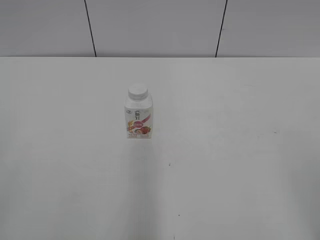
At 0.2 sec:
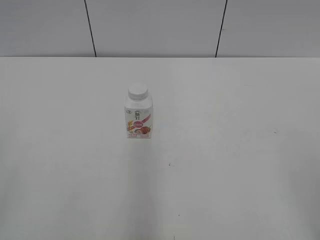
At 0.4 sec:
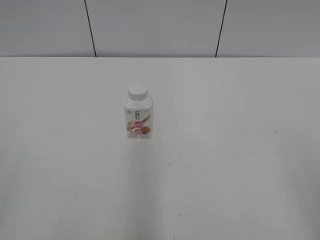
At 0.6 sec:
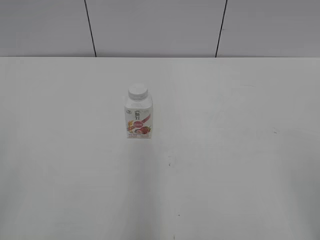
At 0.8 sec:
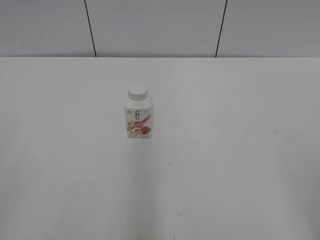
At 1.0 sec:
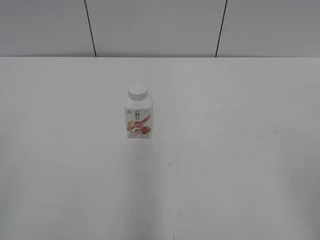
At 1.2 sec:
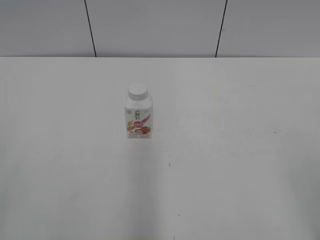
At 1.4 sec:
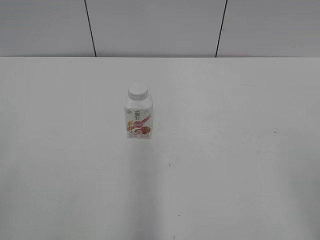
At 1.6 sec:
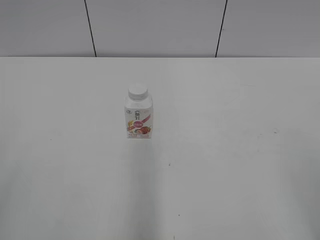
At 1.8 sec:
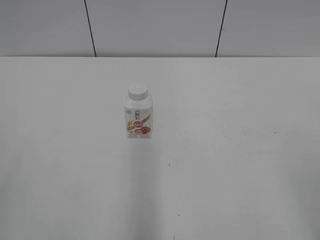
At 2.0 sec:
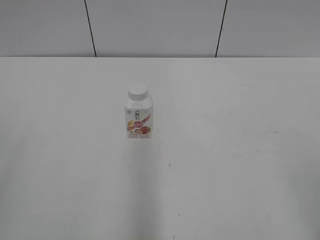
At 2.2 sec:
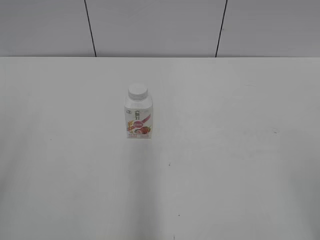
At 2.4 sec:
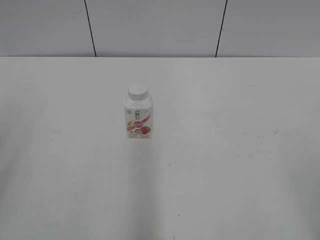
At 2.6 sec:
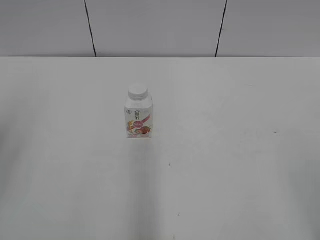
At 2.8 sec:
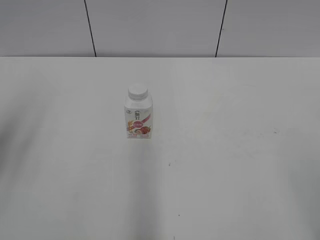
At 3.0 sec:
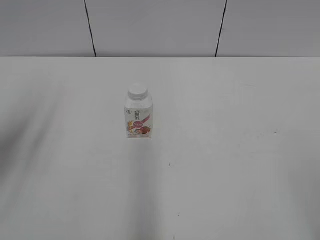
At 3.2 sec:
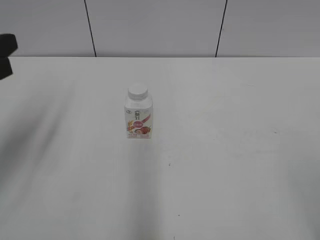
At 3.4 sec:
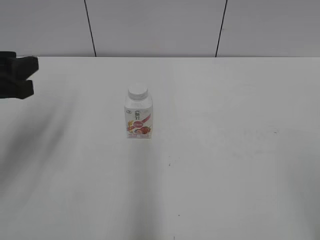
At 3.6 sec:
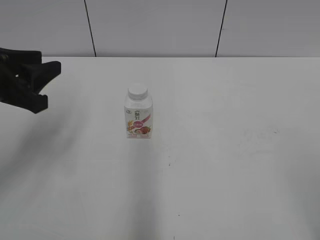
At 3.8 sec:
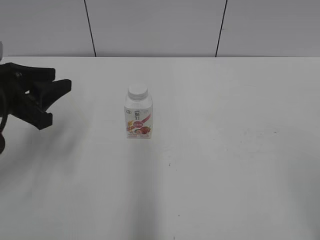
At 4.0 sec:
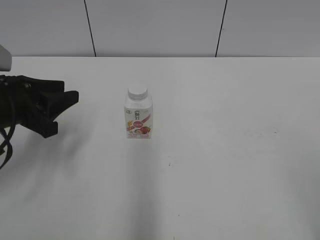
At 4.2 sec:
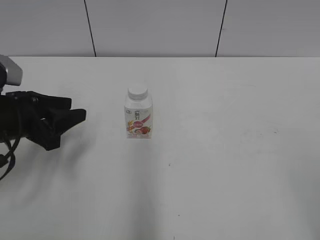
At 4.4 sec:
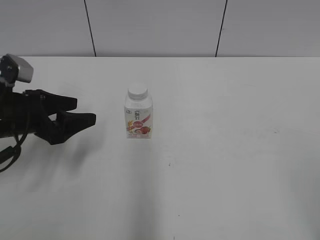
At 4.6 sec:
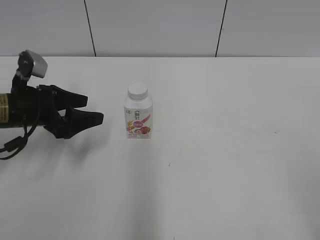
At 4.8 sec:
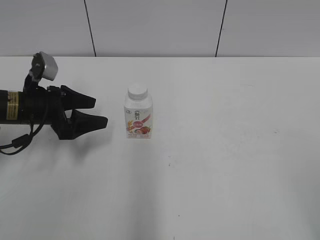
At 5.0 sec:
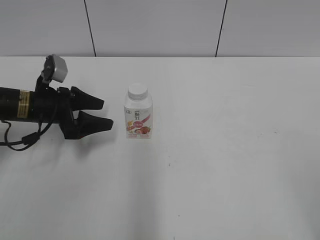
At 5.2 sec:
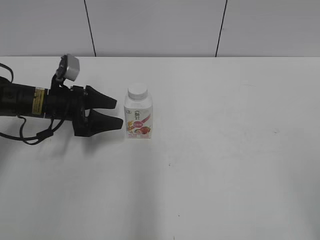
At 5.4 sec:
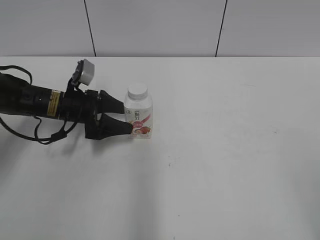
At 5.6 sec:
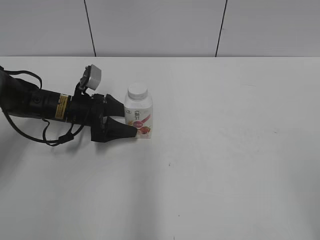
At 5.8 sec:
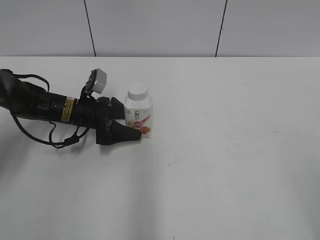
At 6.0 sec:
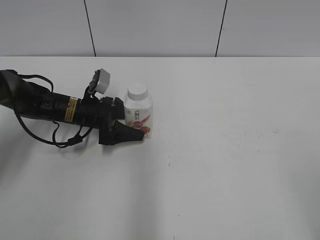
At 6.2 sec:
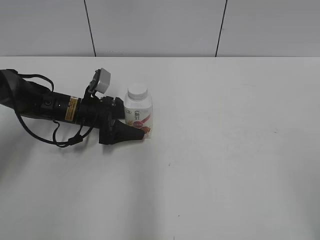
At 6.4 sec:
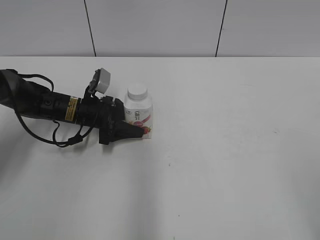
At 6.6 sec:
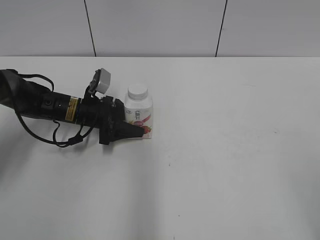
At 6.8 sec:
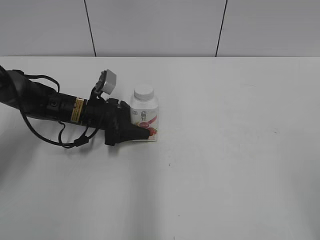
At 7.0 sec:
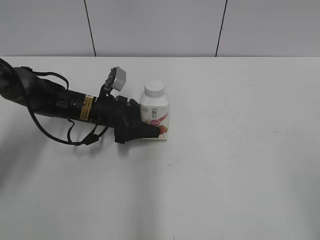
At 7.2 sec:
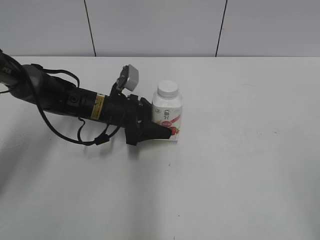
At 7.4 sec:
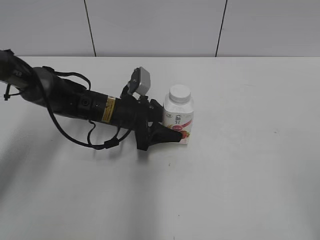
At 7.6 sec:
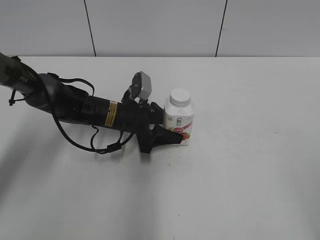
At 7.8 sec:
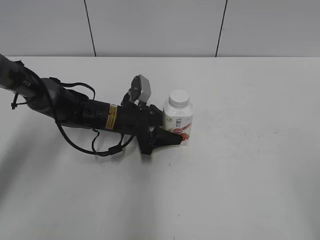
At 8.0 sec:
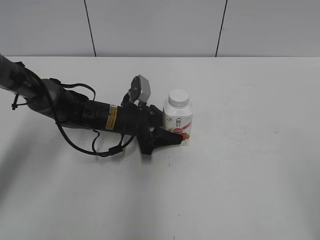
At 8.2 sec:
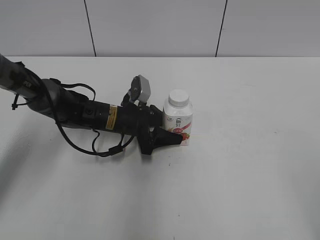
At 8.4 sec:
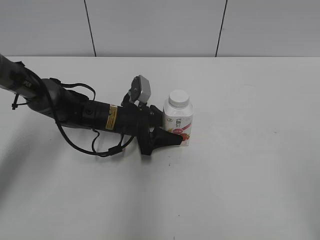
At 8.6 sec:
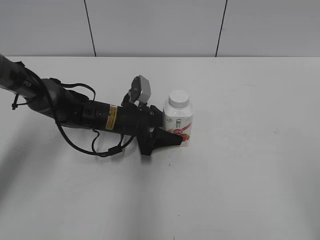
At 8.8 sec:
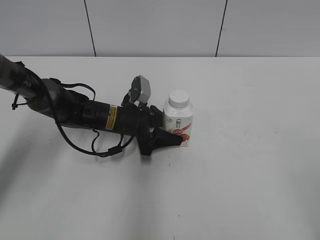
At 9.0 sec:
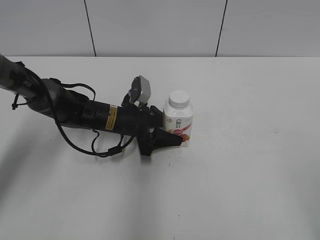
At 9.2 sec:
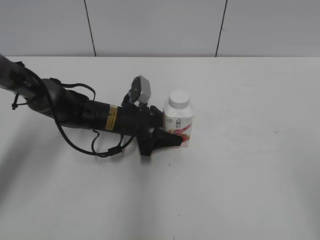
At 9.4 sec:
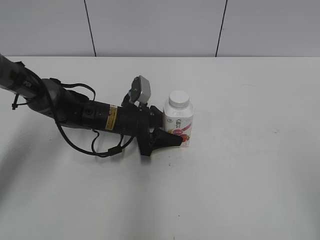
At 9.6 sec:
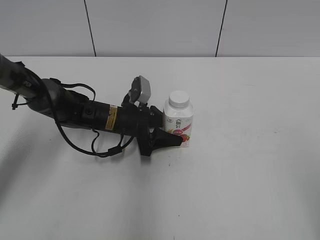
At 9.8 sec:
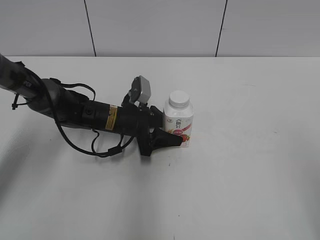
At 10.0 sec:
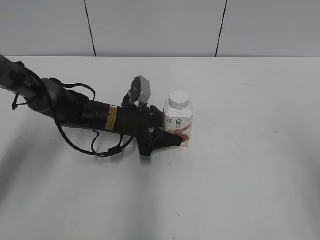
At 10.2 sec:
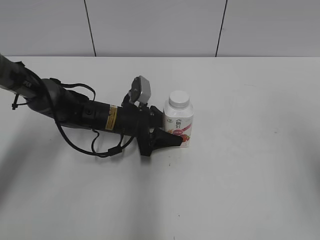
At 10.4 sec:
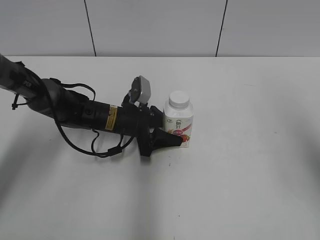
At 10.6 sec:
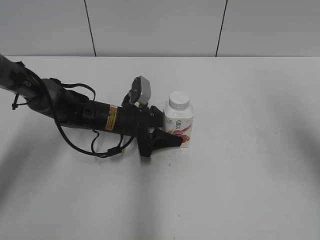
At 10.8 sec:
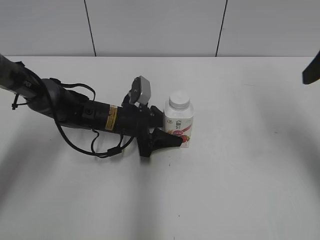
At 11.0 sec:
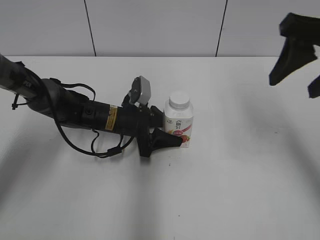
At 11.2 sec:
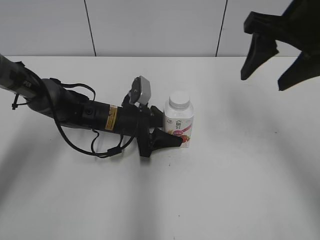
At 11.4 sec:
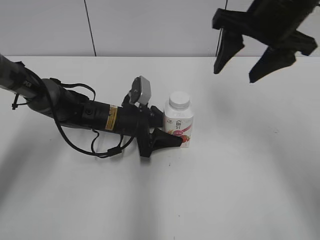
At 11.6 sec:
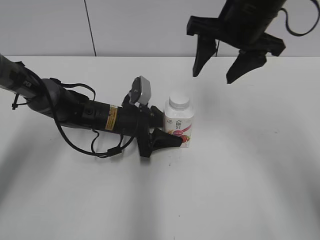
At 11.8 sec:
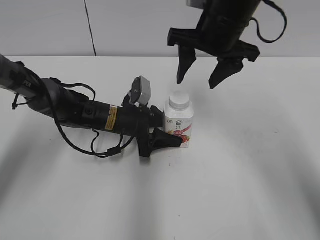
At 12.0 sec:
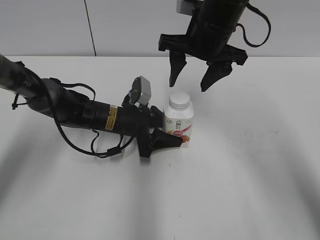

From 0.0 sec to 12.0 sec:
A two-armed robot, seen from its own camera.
Step, from 0.0 sec to 6.4 sec: Grab the Yili Changqing with the left hand.
Step, from 6.6 sec to 8.0 sec: Move the Yili Changqing from left to right.
From 1.6 sec to 3.0 sec: The left gripper moves forward, approximately 20 cm.
From 3.0 sec to 4.4 sec: The left gripper shifts about 15 cm downward and forward, and opens its fingers.
From 4.4 sec to 6.0 sec: The left gripper heads forward, downward and to the right, covering roughly 15 cm.
From 6.0 sec to 7.6 sec: The left gripper is displaced to the right by some 10 cm, and closes.
From 7.6 sec to 9.0 sec: Neither gripper changes place.
From 9.0 sec to 10.4 sec: The right gripper goes roughly 20 cm forward and upward, and closes, then opens again.
From 10.4 sec to 12.0 sec: The right gripper is displaced forward, to the left and downward by approximately 30 cm.

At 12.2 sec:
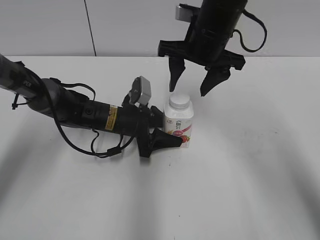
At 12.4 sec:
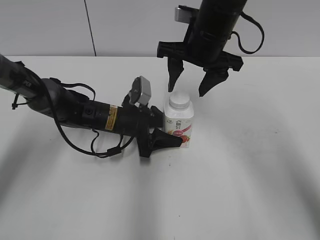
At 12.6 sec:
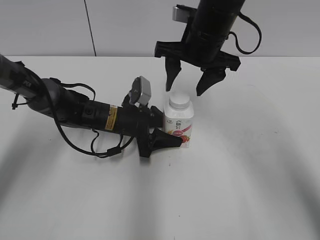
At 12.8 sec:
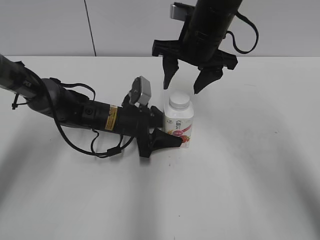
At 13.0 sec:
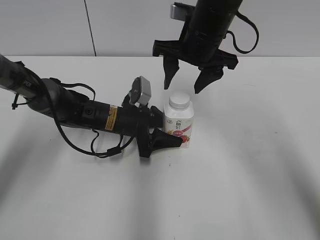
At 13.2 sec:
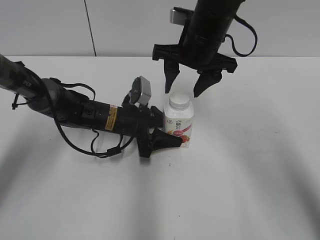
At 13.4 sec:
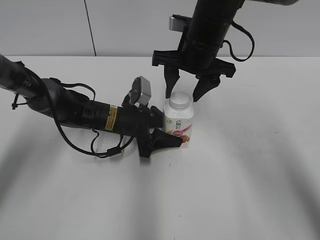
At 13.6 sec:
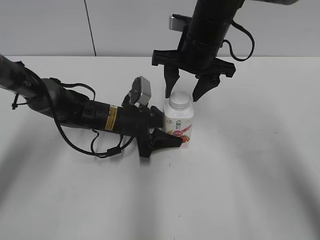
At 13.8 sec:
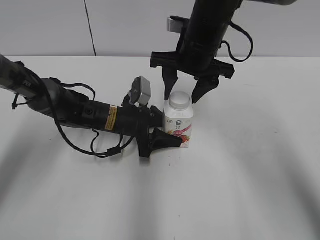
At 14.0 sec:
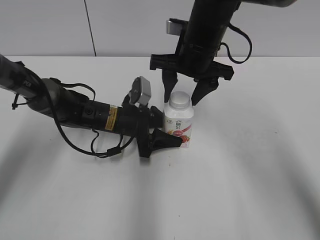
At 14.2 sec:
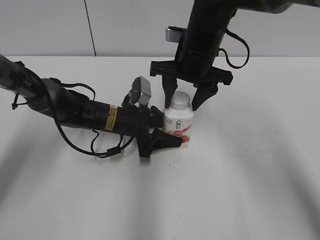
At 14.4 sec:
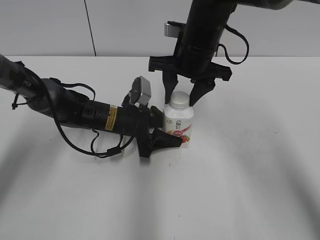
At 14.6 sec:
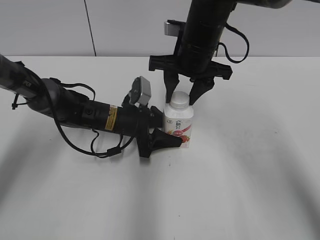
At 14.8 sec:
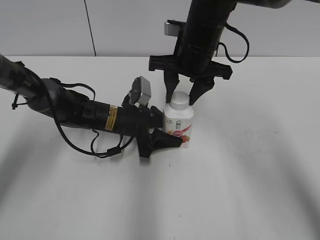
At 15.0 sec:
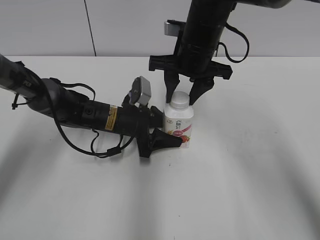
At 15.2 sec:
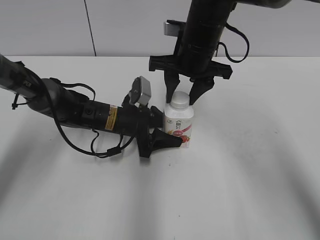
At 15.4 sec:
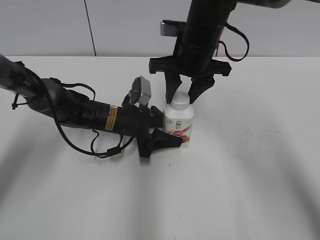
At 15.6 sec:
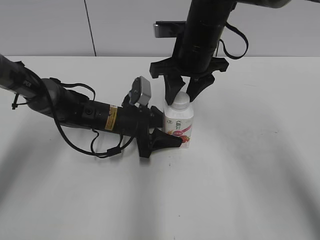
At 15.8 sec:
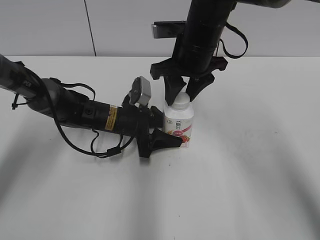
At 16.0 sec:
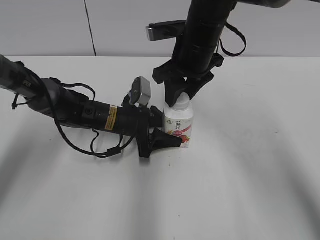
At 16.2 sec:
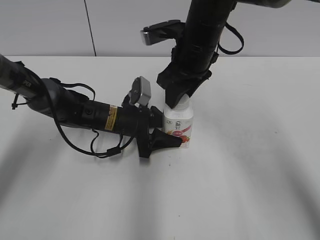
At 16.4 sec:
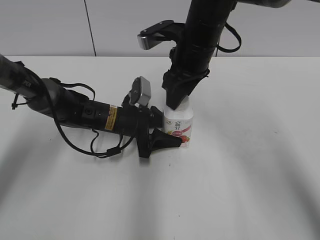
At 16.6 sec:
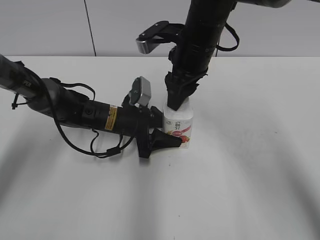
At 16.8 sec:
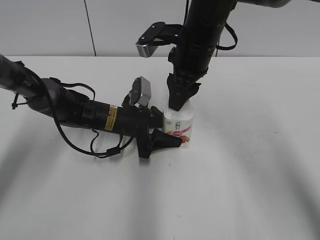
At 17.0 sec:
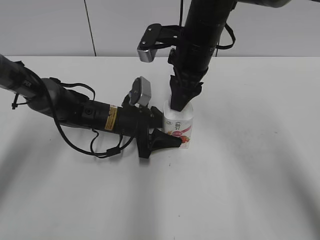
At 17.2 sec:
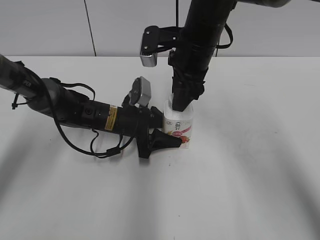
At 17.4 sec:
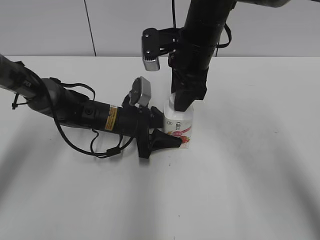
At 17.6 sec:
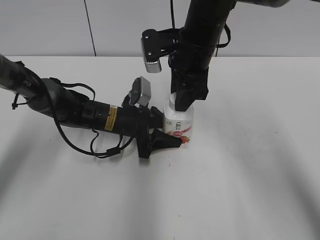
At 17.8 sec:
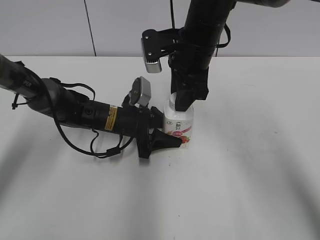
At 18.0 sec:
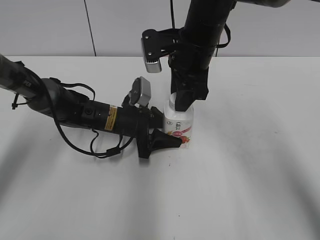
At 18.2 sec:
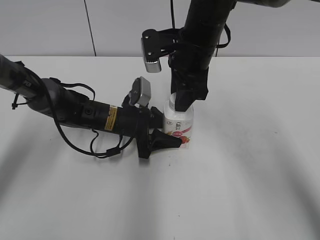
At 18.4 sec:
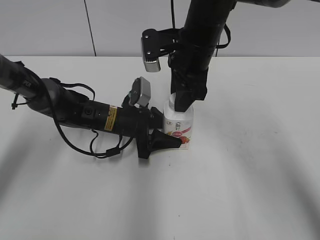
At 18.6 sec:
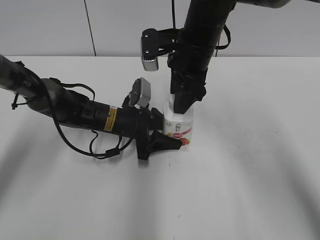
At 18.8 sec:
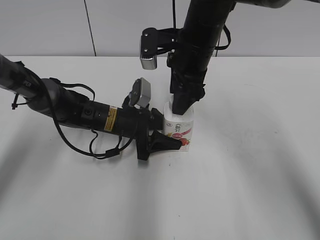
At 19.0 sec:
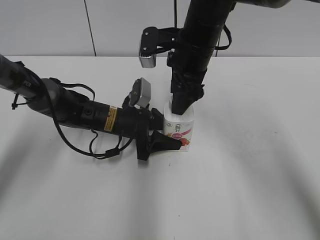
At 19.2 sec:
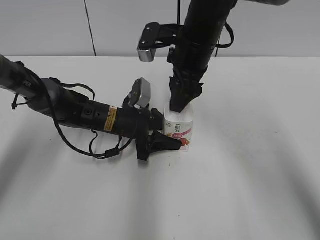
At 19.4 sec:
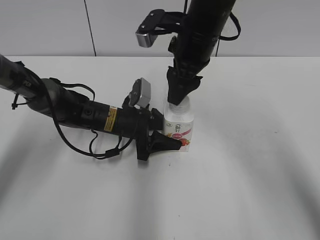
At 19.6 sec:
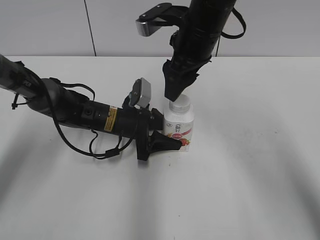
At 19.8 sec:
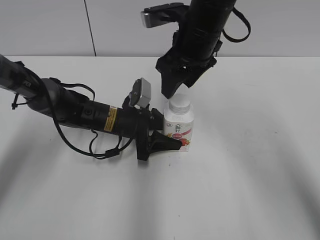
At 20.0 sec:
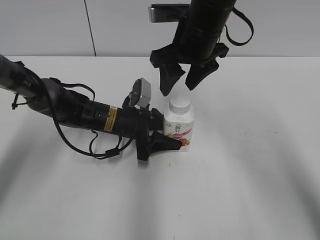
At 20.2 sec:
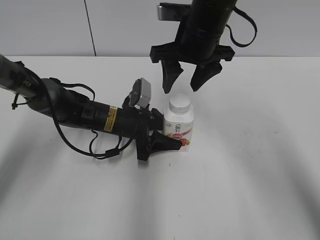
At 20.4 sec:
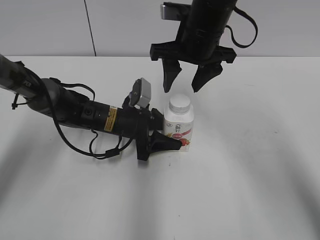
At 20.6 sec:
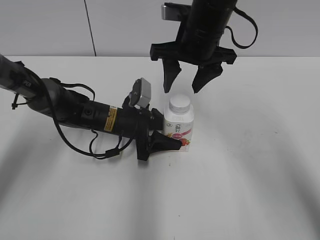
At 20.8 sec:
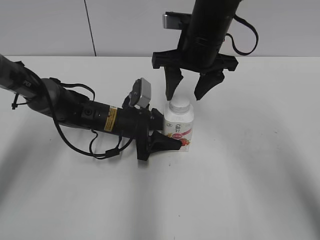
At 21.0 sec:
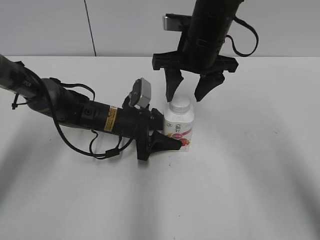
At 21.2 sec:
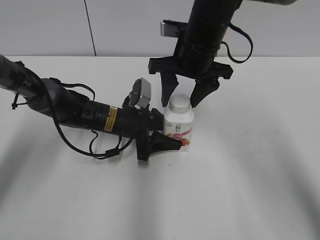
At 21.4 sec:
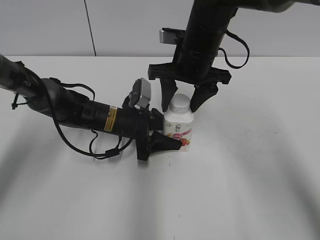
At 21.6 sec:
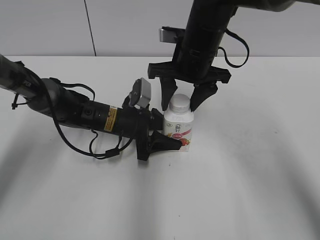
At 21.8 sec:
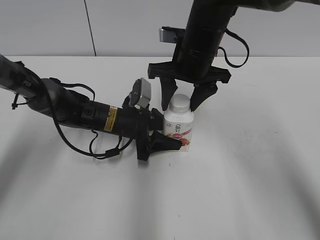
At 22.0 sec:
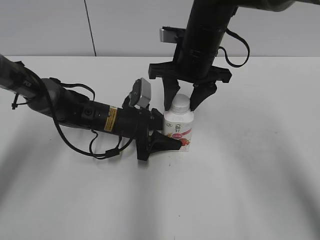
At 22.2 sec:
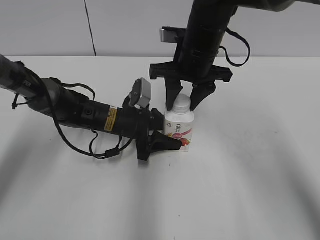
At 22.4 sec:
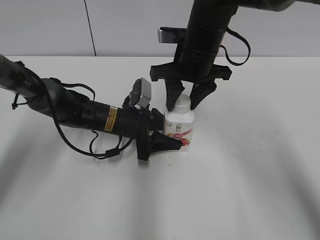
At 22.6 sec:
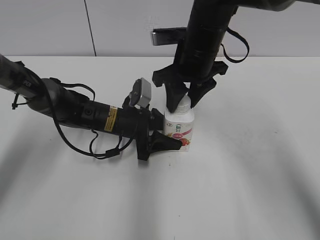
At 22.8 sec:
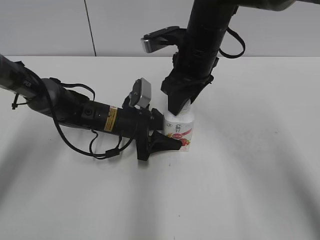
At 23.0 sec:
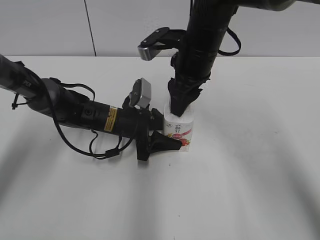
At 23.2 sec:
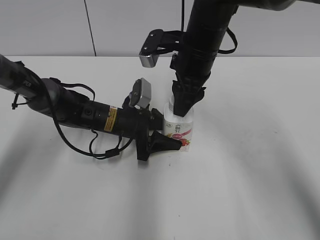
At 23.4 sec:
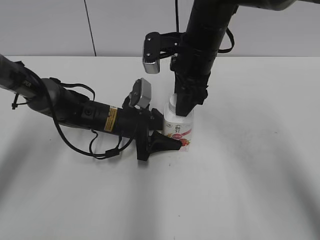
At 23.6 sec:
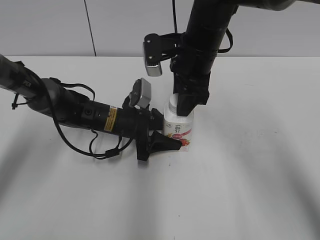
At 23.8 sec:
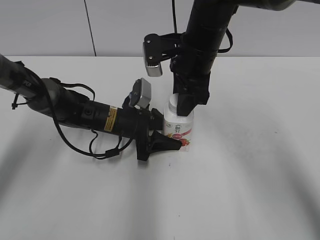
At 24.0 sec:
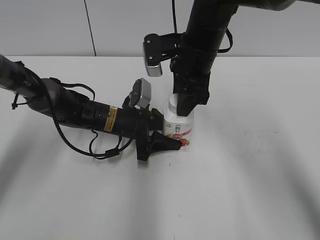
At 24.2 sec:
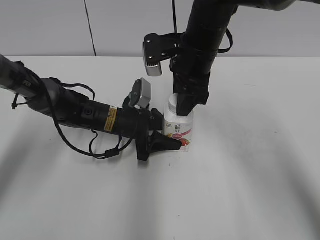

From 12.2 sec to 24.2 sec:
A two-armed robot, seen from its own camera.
From 12.2 sec to 13.8 sec: The grippers move only a little.
From 13.8 sec to 15.2 sec: The right gripper closes up.
From 18.2 sec to 19.8 sec: The right gripper opens up.
From 21.2 sec to 22.6 sec: The right gripper closes its fingers.
